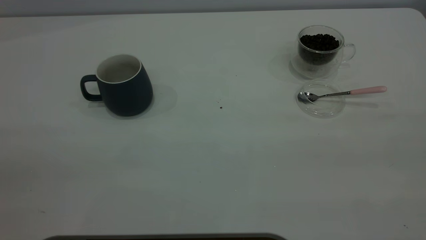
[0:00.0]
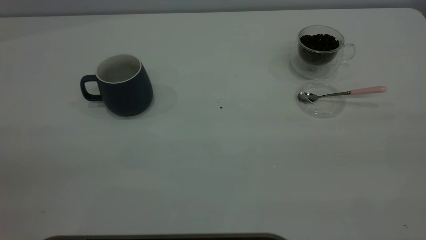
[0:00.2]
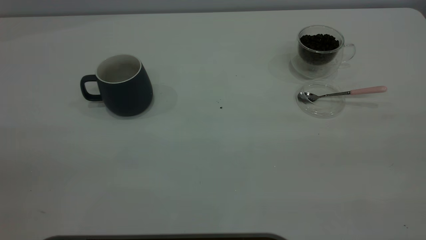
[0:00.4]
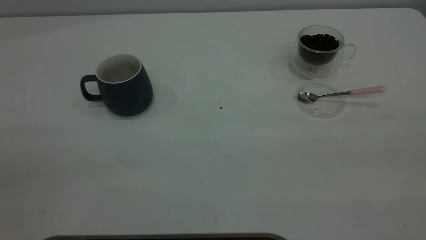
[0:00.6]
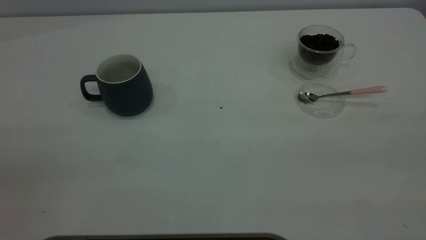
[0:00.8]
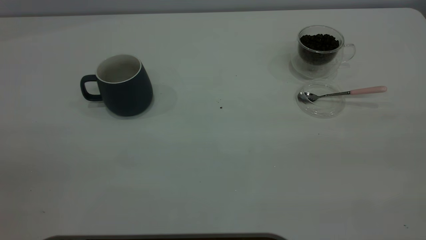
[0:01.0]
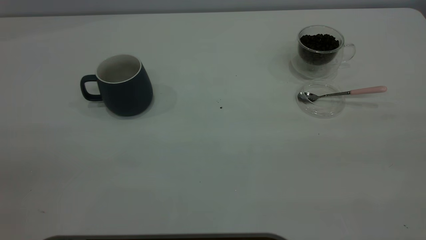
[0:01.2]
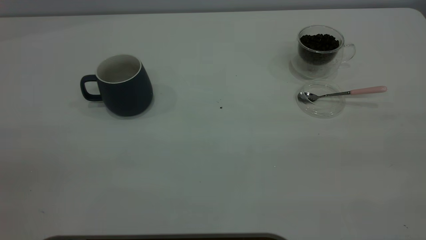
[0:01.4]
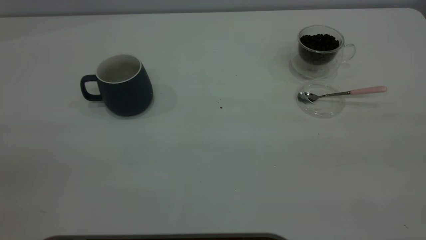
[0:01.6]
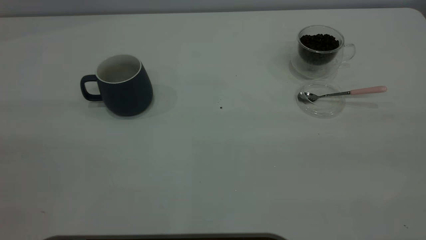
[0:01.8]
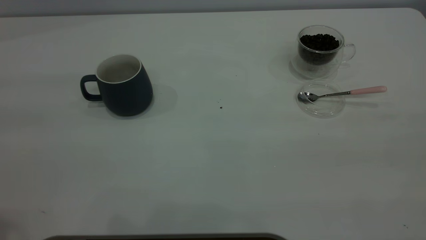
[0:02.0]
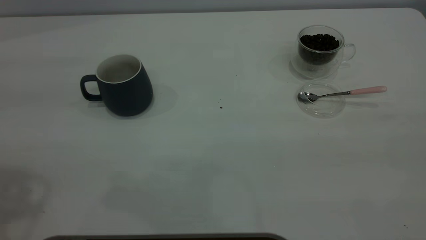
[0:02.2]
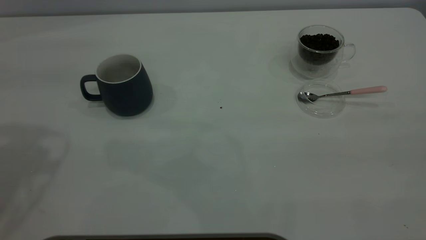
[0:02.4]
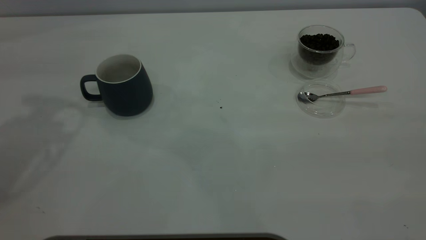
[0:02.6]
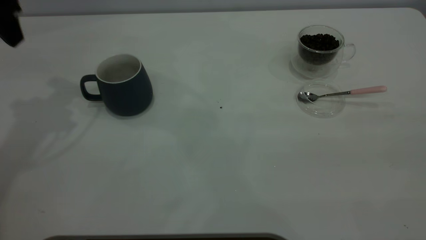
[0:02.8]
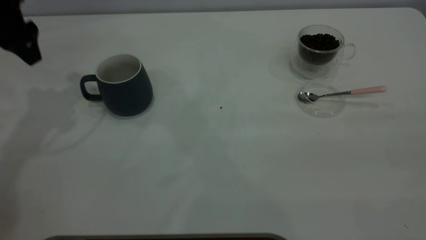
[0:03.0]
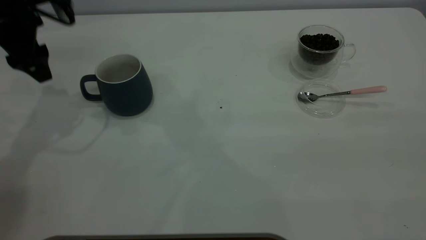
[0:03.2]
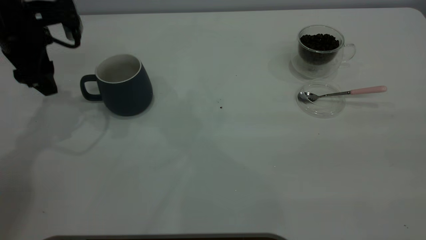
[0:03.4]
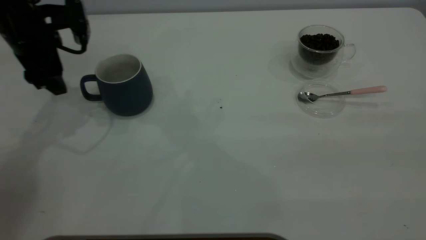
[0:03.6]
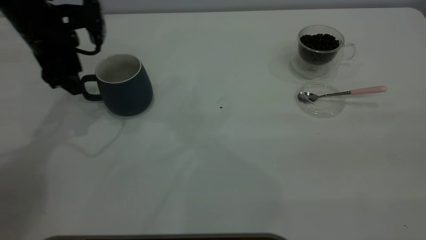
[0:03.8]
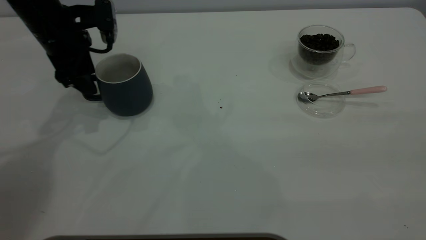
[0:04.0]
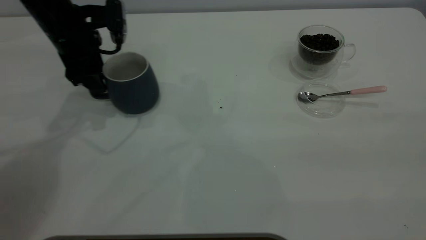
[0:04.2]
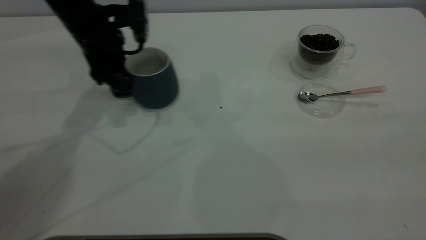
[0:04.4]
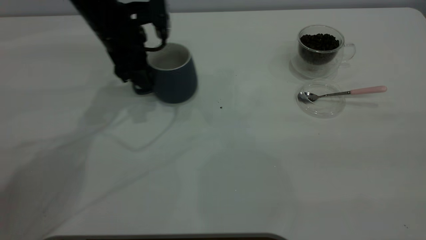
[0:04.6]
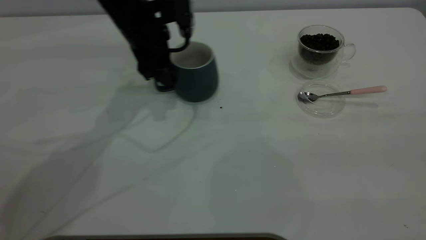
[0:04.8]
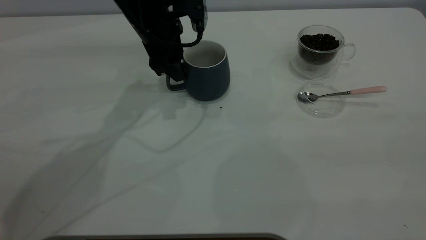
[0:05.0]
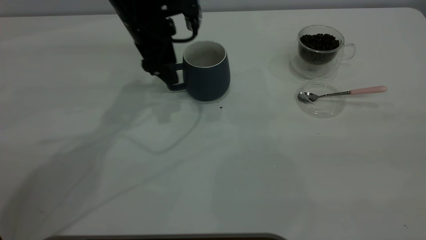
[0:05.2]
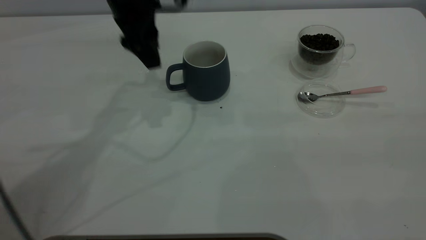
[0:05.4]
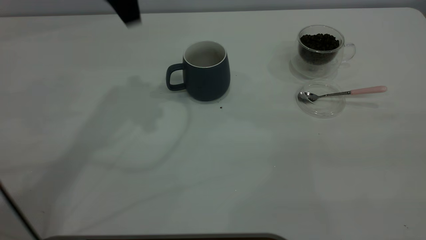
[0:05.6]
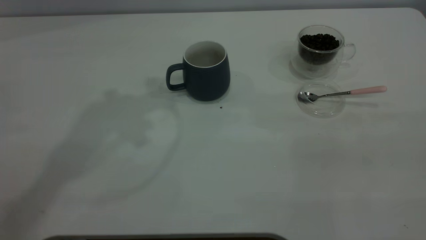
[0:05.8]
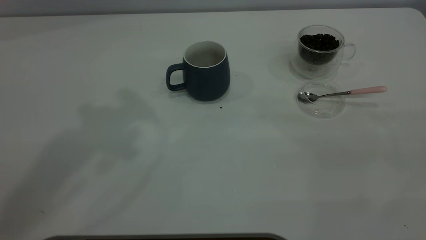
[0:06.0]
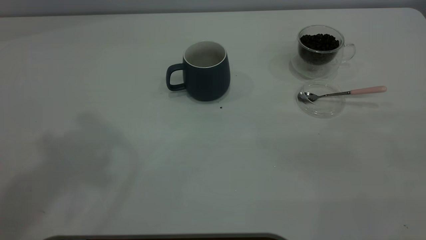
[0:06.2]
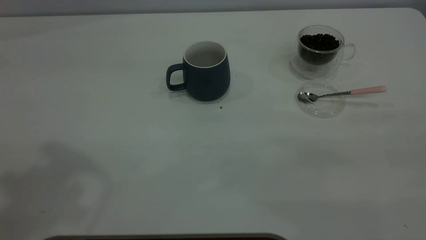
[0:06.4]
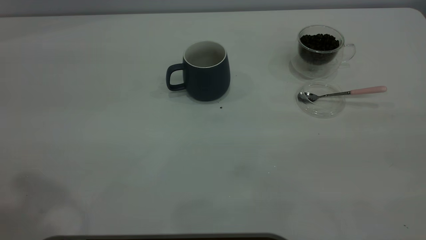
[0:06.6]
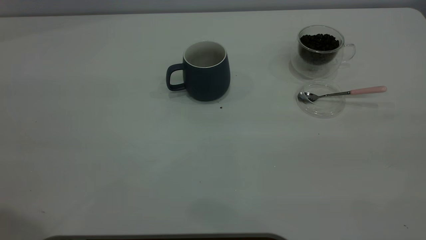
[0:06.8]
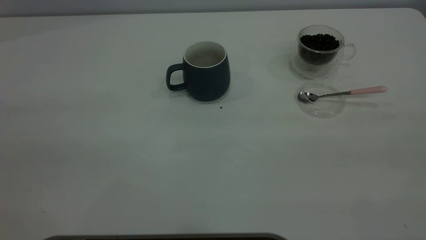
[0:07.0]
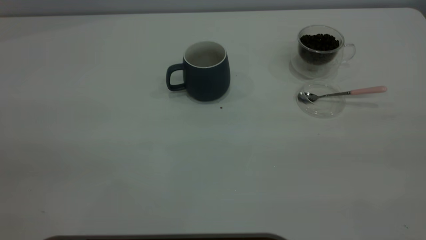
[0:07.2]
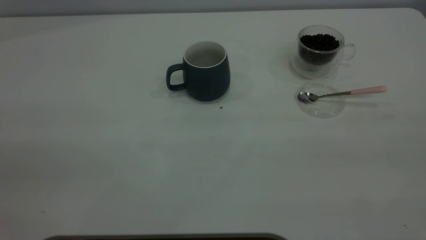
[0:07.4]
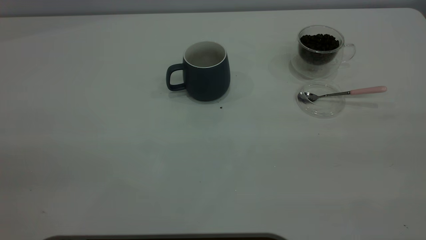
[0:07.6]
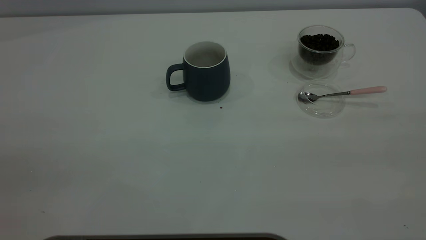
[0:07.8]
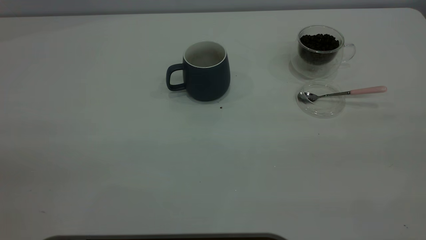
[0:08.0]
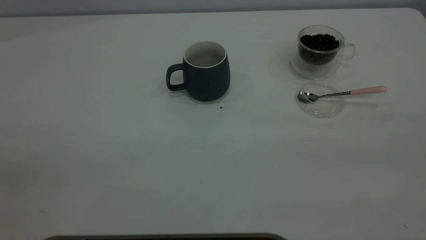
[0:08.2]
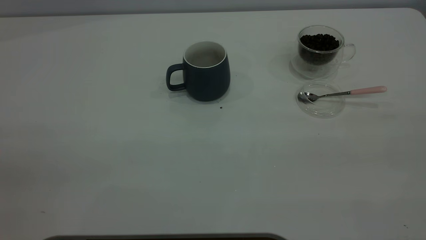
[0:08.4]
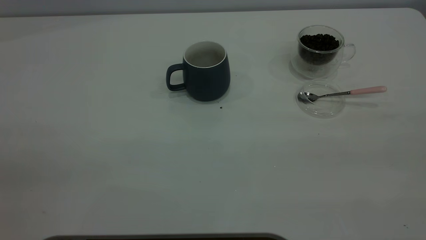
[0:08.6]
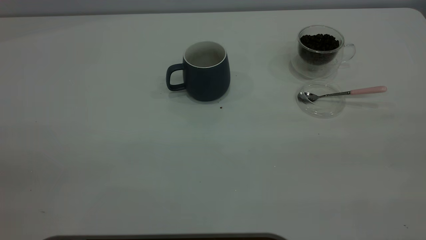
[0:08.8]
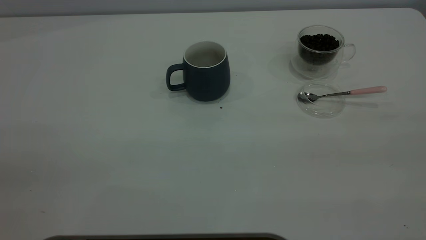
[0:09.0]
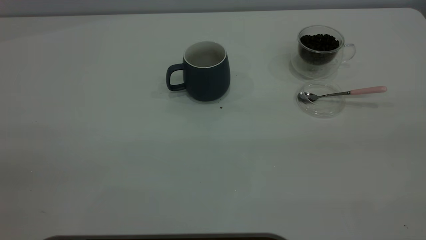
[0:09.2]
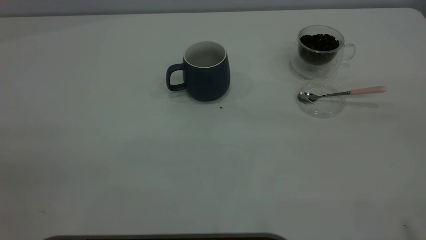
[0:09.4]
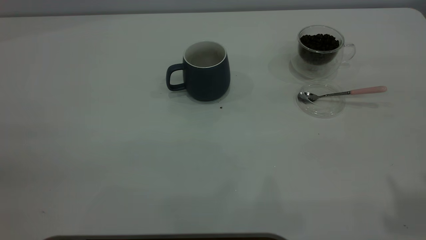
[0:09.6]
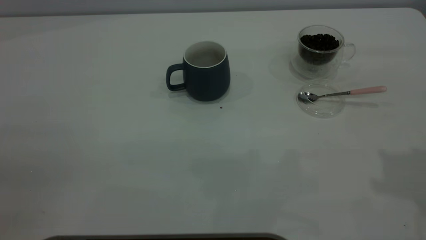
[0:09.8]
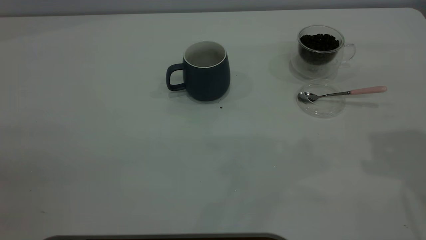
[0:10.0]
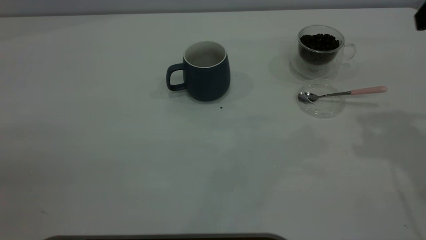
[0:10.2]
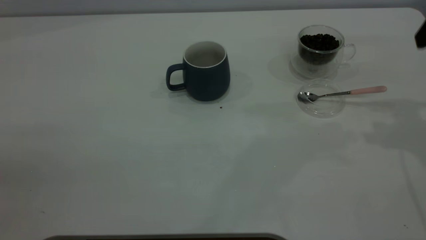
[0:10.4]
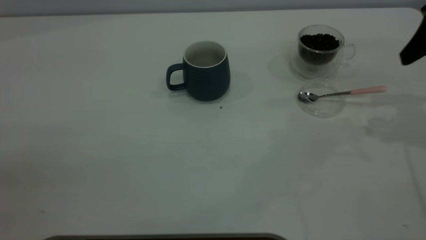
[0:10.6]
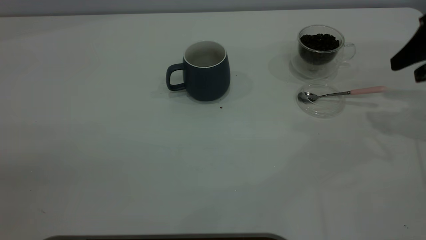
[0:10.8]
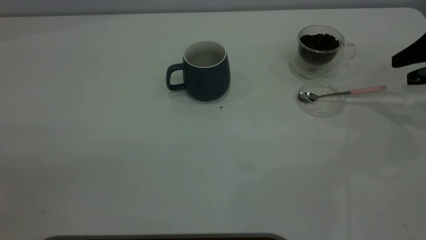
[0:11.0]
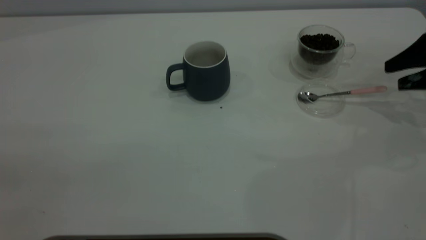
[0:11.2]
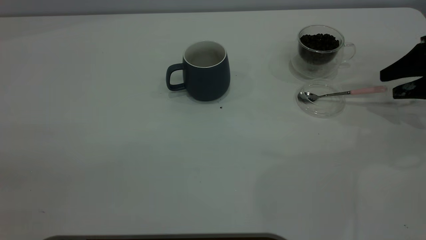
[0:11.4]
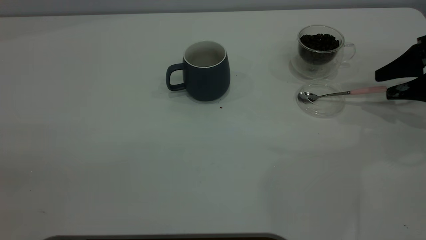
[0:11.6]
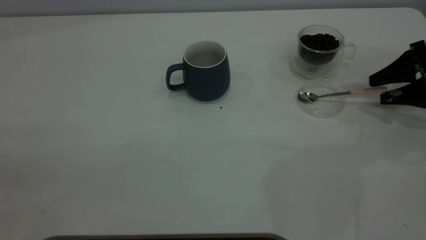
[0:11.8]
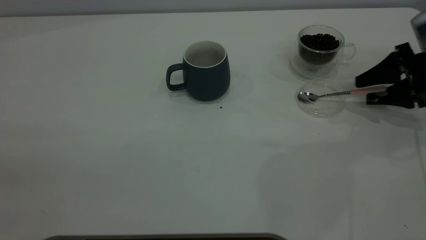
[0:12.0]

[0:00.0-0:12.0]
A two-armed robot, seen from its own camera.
Task of the whole recording: the left gripper place the grey cup in the center of the table, the right gripper take the pink spoon from the cup lid and scoop out the coffee beans from the coffee cup and put them into the grey cup, the right gripper put the spoon back into the cup lid.
Step, 0:00.0 to 0:05.2: Move the cup to the center of view.
0:01.6 to 0:03.0: The left gripper heads forward, covering some 40 cm.
0:03.0 to 0:04.4: The left gripper shifts about 15 cm to the right and downward.
0:04.4 to 0:06.0: The left gripper goes about 35 cm upward.
0:10.4 to 0:12.0: The right gripper heads downward, covering about 20 cm.

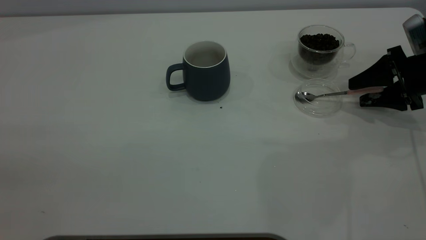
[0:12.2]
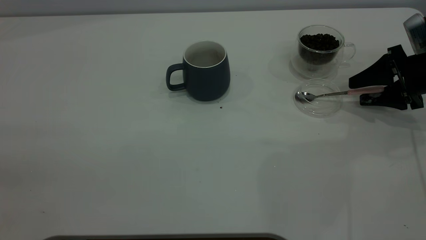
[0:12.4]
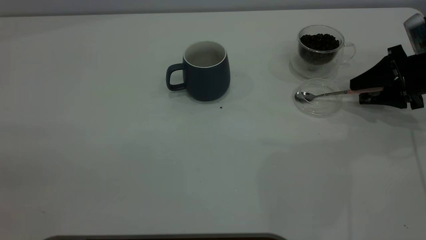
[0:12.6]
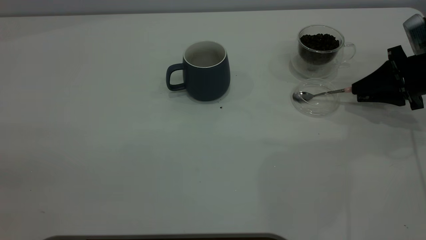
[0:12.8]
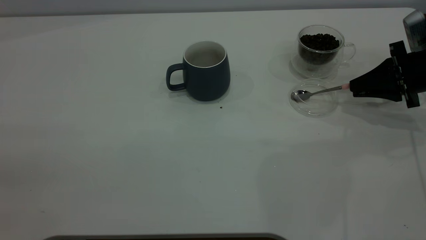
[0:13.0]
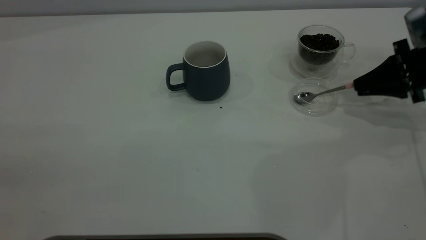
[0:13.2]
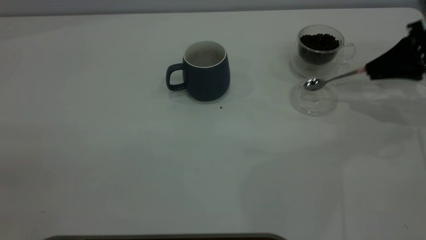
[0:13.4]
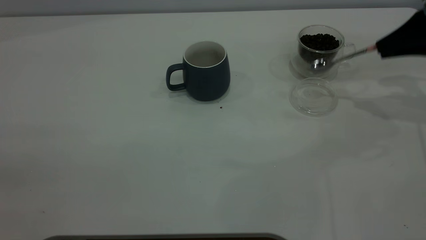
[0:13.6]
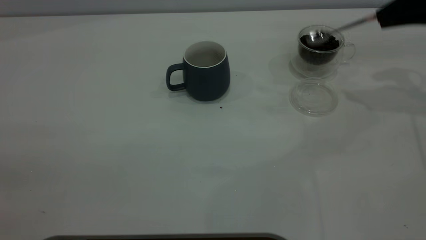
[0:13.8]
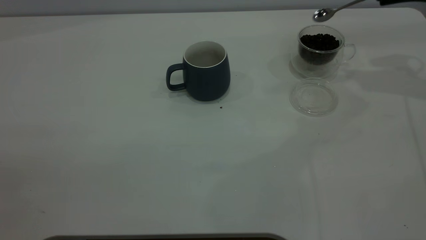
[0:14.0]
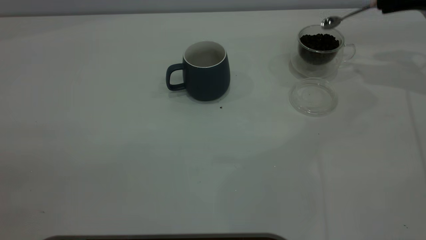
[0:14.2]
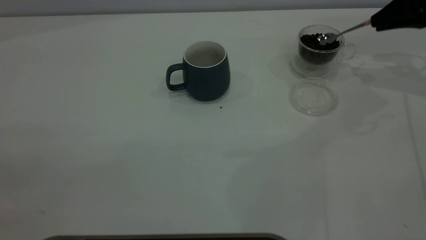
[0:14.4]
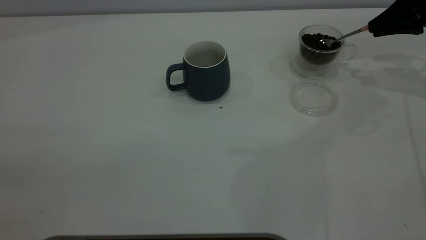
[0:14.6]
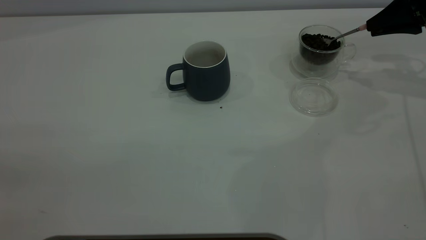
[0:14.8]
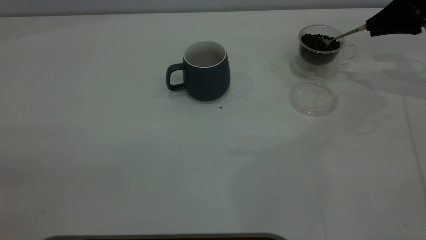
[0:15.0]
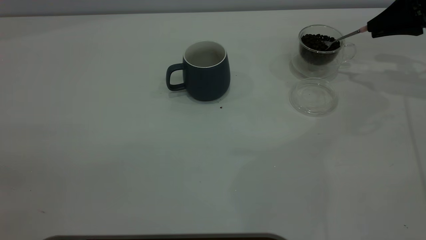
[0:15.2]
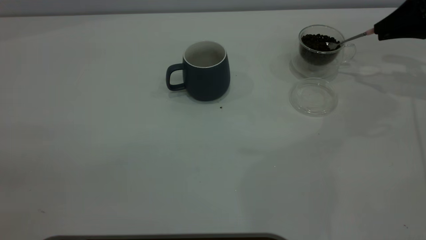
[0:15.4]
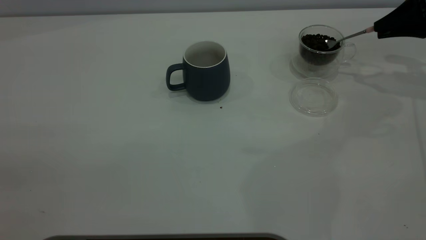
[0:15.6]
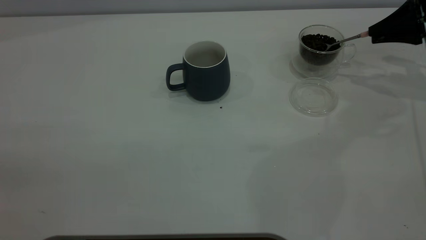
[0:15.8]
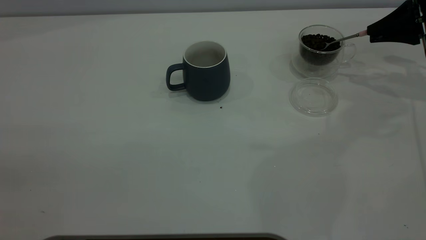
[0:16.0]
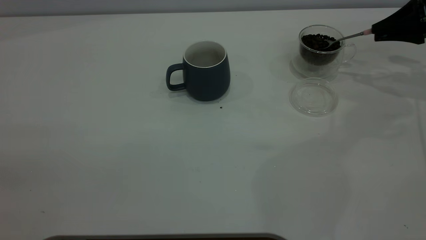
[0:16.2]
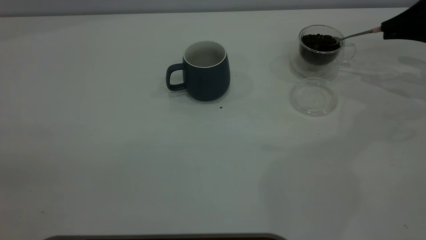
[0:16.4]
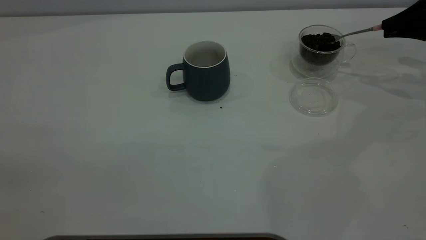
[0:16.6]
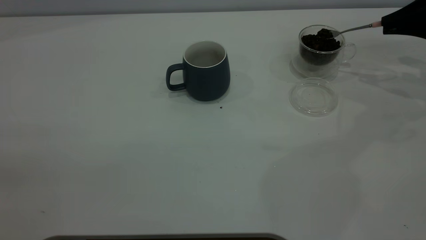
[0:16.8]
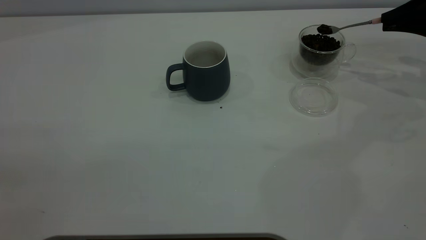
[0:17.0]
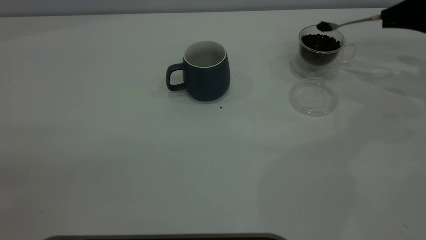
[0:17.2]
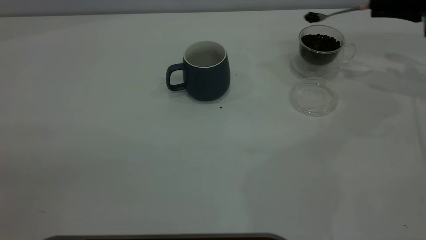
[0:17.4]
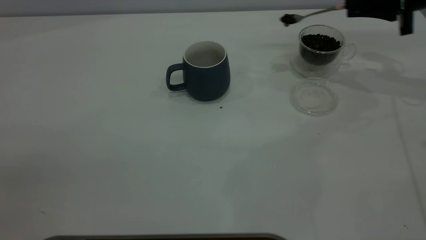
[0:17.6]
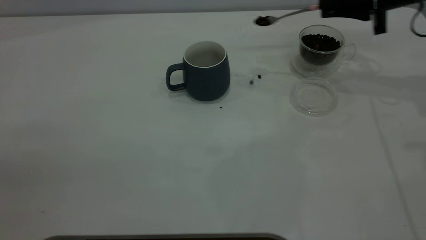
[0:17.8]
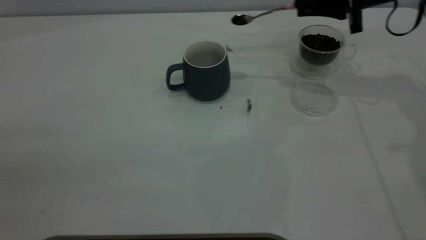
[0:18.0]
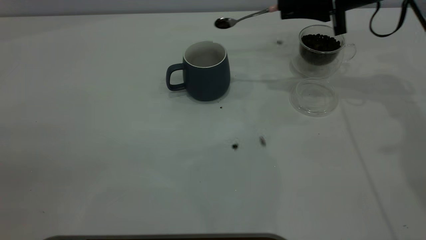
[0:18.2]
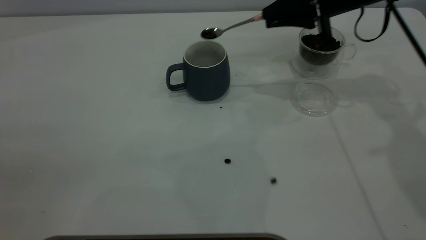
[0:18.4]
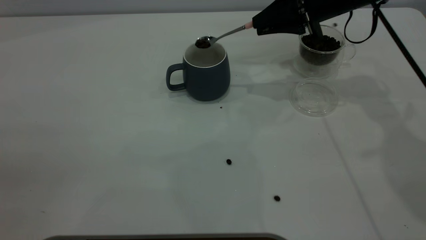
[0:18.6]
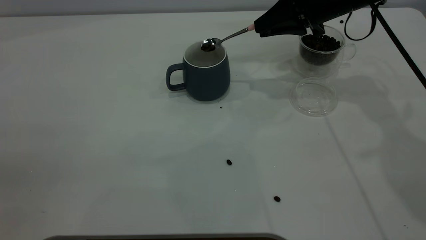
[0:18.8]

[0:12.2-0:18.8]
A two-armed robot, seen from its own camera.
Task of the whole recording: the left gripper place the grey cup in the center of the table, the right gripper take the pink spoon from the cup lid and scoop out the coffee beans from the coffee cup and put them into the grey cup, the right gripper put the spoon back into the cup lid.
0:12.2 to 0:13.8: The right gripper heads upward, covering approximately 15 cm, and closes up.
0:13.8 to 0:15.4: The right gripper goes some 5 cm downward.
0:15.4 to 0:17.2: There are only small adjustments of the grippers.
0:17.2 to 0:18.8: The right gripper is displaced to the left by roughly 20 cm.
